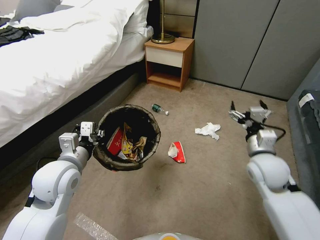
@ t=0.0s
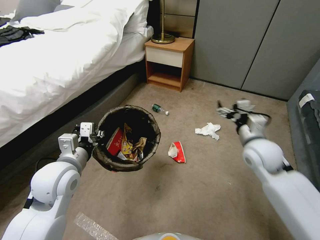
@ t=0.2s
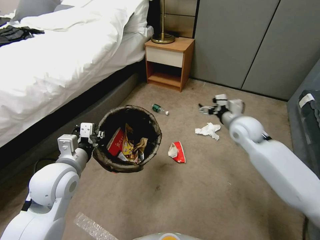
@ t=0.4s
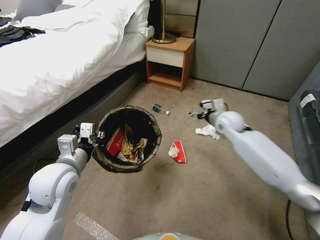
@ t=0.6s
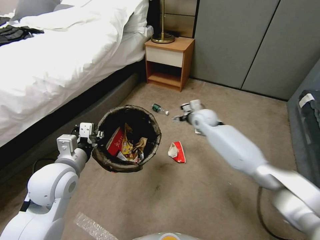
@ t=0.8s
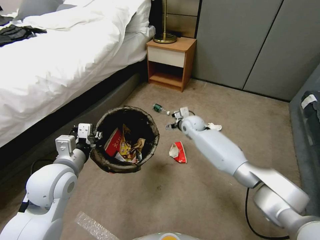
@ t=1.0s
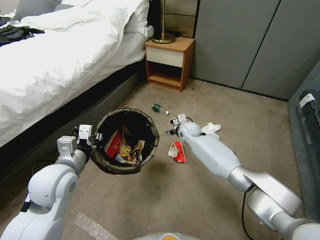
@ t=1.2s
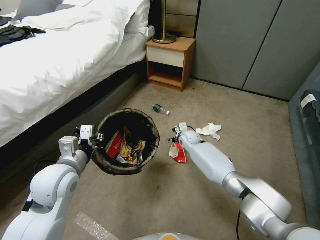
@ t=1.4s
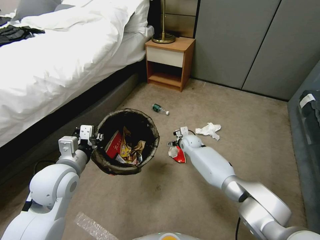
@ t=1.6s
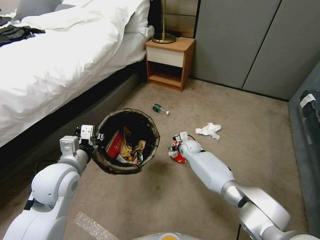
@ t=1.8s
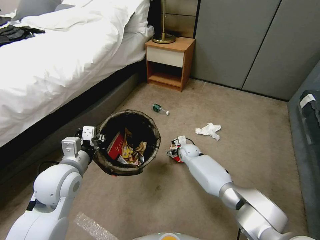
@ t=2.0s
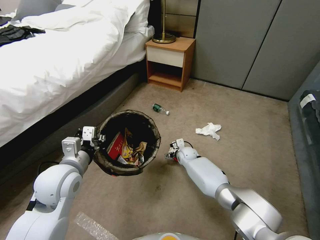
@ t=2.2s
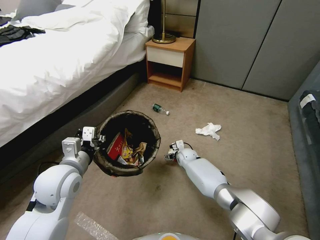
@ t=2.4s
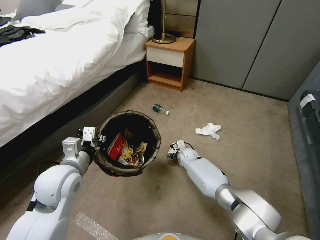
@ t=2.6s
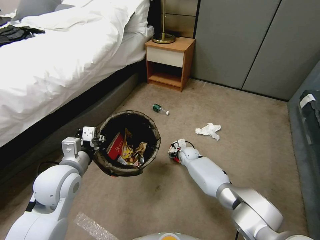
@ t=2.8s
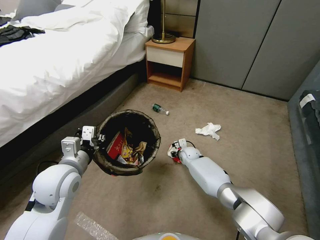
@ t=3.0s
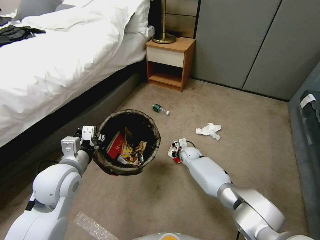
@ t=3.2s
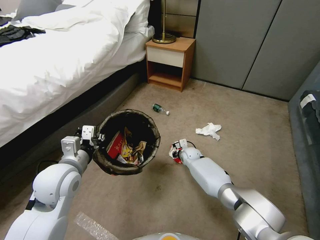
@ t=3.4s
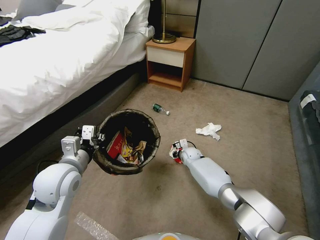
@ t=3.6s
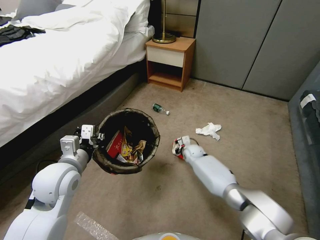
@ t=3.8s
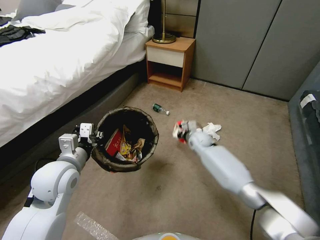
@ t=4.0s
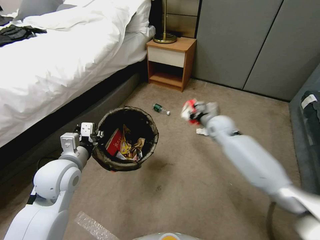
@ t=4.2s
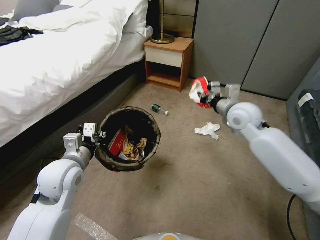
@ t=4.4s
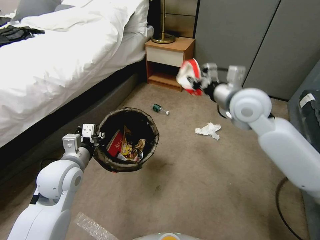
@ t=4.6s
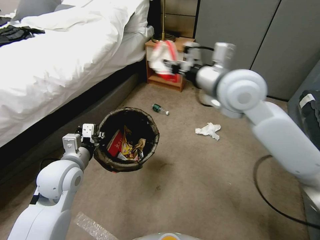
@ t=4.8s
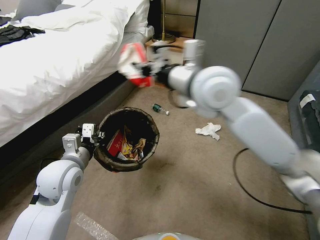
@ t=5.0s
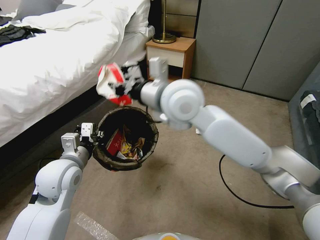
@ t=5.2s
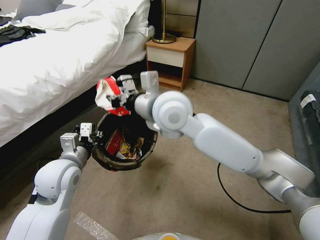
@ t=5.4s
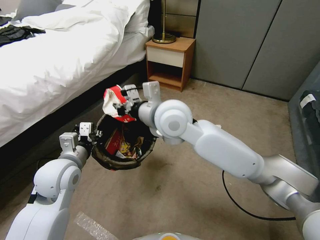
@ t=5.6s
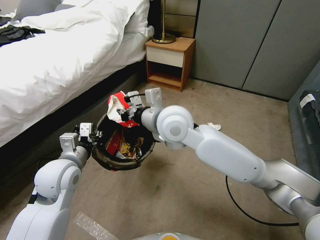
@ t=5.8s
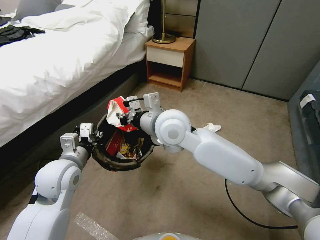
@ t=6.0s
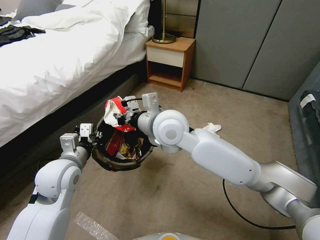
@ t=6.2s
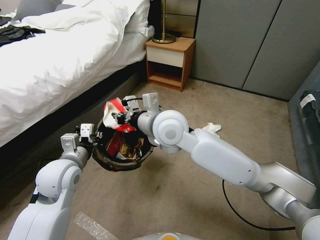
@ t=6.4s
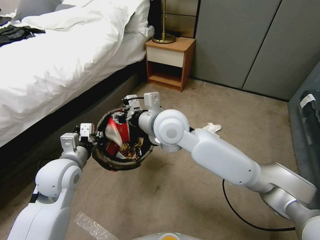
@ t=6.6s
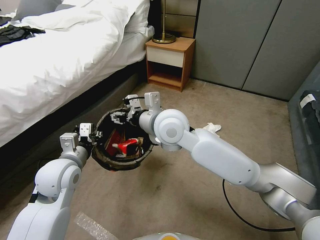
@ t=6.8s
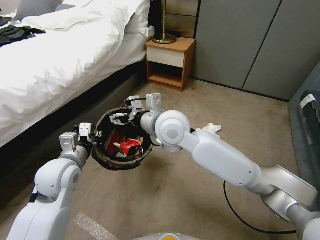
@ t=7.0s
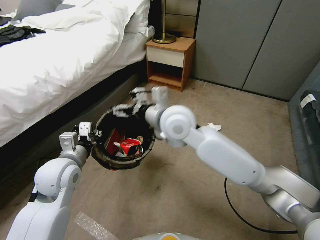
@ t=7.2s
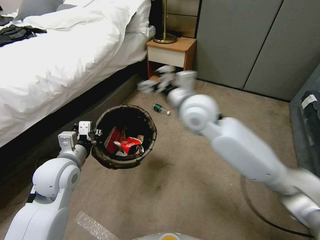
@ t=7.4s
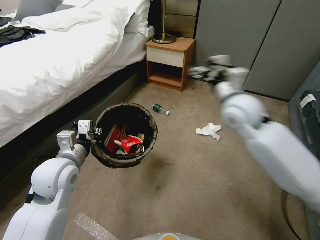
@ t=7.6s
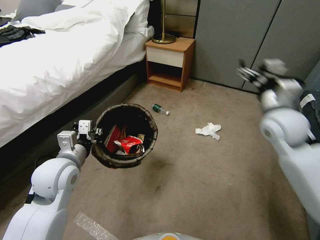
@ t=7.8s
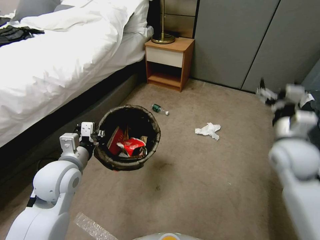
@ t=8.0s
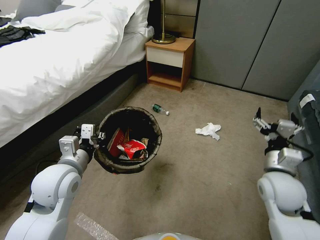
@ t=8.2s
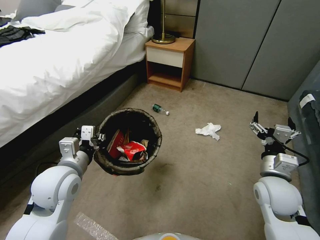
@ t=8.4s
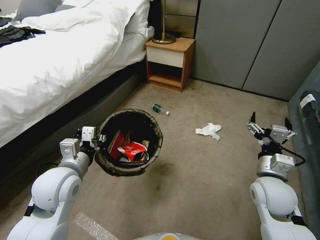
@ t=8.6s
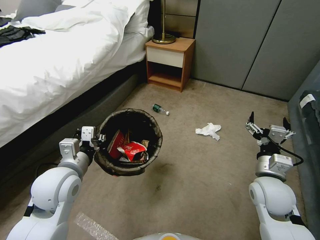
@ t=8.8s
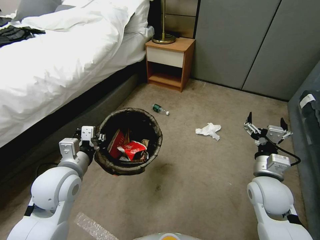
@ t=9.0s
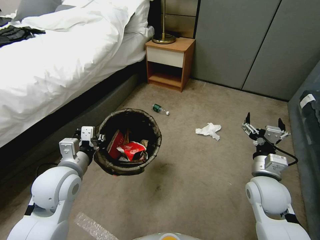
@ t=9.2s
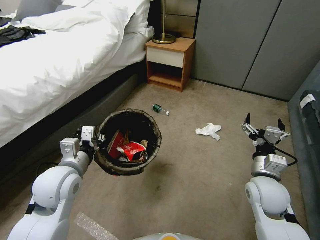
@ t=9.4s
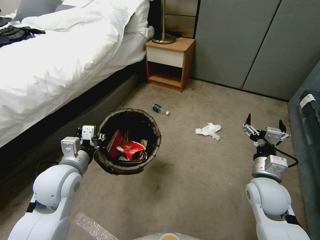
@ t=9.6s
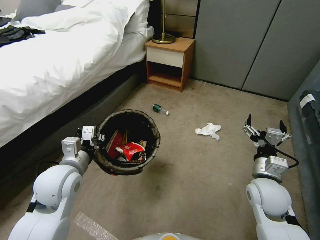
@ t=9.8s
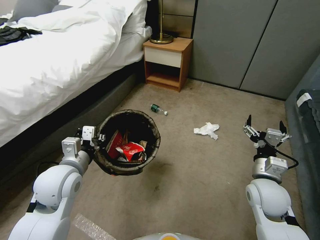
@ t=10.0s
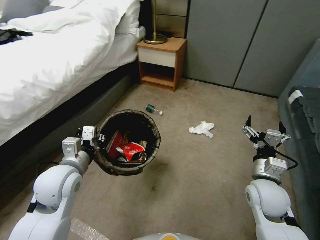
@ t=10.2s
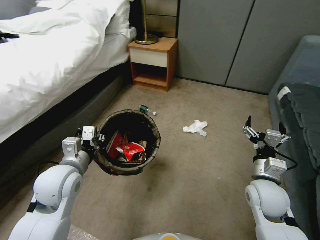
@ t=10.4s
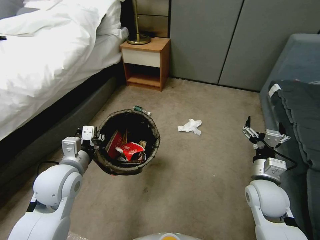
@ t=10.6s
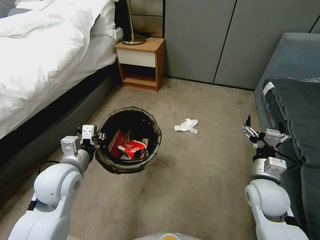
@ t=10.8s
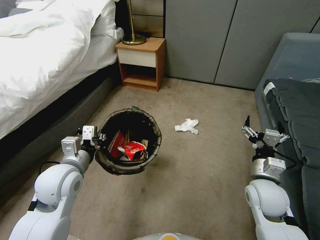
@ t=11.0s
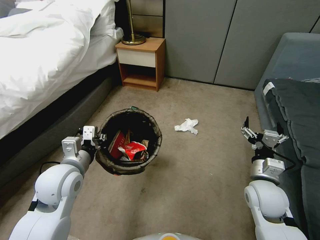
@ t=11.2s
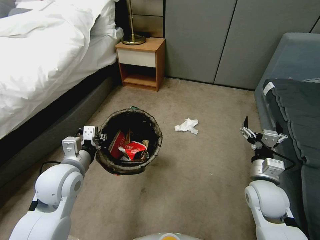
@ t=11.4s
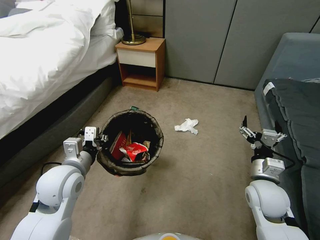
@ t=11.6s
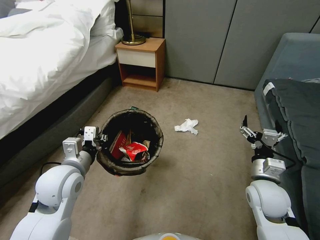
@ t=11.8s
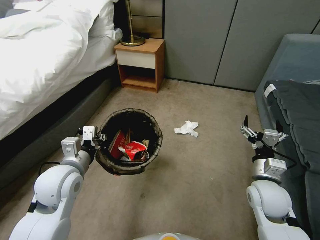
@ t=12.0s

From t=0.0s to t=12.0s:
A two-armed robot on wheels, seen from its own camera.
Task of the whole recording: Pick up the trash bin, then pick up the garbage from the floor and place it into the trash bin.
From t=0.0s to t=1.6s: The right gripper shifts about 35 cm forward, downward and to the left.
From t=1.6s to t=3.0s: The right gripper goes approximately 5 cm downward, and closes.
From t=3.0s to t=4.4s: The right gripper moves upward, roughly 35 cm, and closes.
From t=4.4s to t=6.0s: The right gripper shifts roughly 25 cm to the left.
From t=6.0s to t=7.6s: The right gripper moves to the right, about 20 cm, and opens.
From t=7.6s to t=9.0s: The right gripper moves downward, backward and to the right, approximately 25 cm.

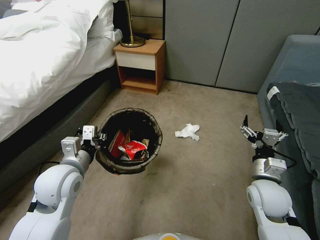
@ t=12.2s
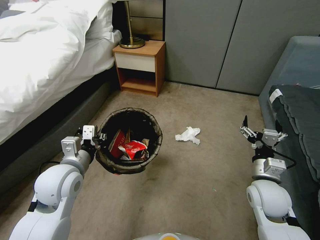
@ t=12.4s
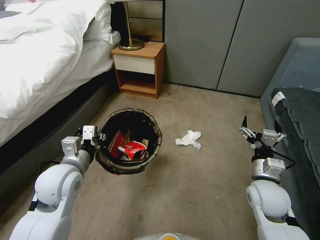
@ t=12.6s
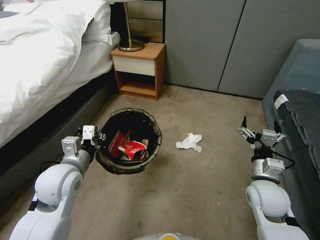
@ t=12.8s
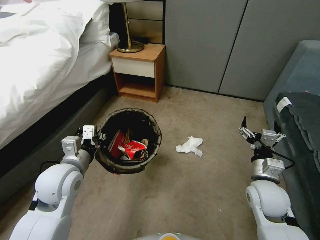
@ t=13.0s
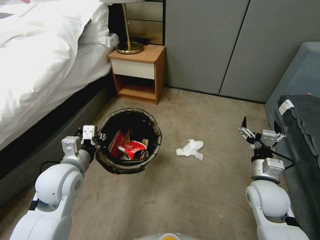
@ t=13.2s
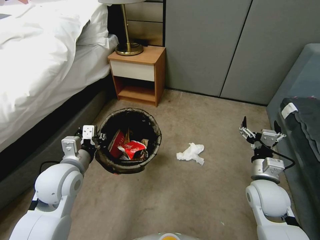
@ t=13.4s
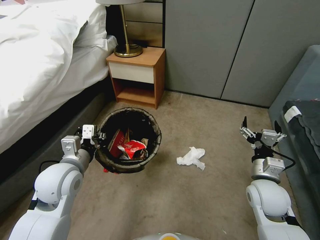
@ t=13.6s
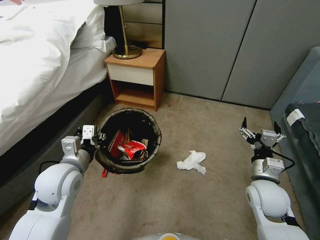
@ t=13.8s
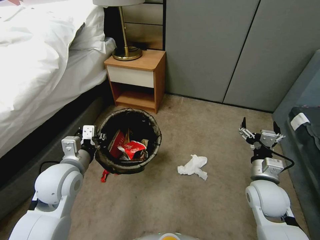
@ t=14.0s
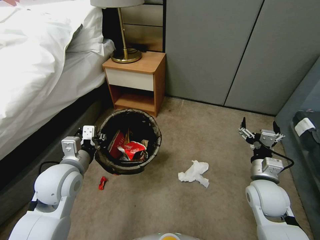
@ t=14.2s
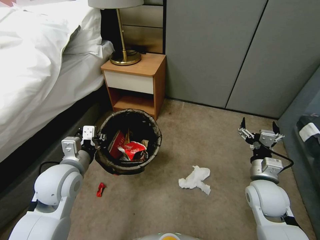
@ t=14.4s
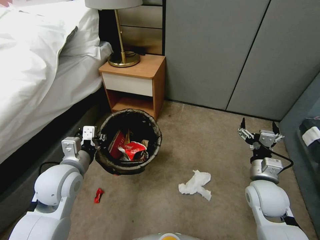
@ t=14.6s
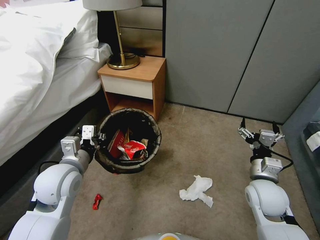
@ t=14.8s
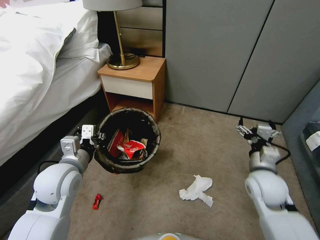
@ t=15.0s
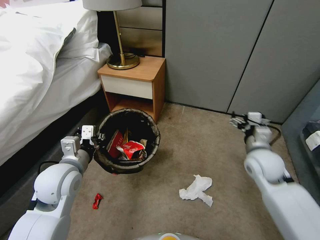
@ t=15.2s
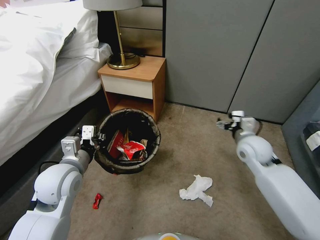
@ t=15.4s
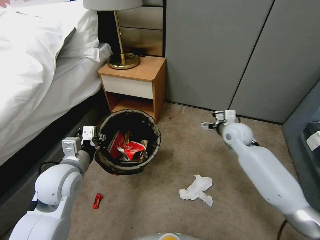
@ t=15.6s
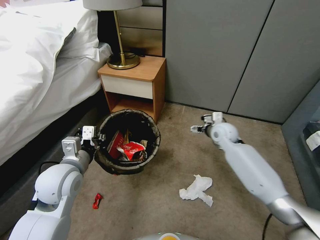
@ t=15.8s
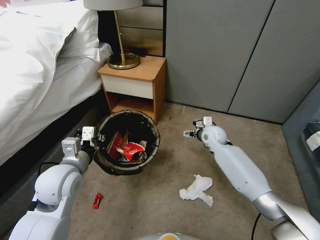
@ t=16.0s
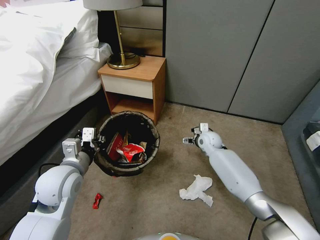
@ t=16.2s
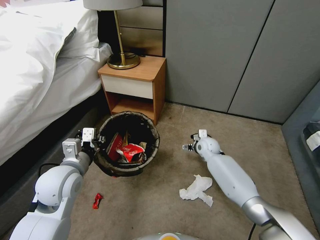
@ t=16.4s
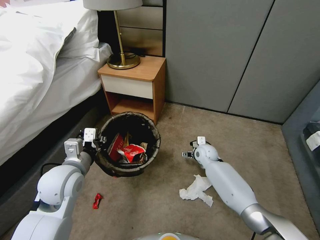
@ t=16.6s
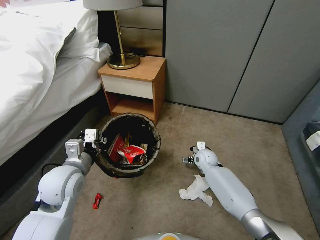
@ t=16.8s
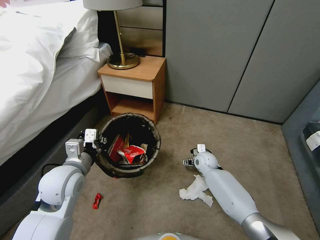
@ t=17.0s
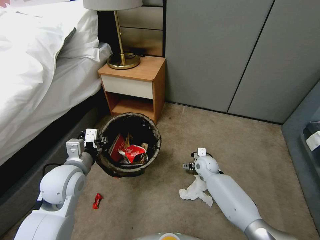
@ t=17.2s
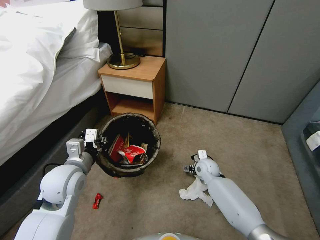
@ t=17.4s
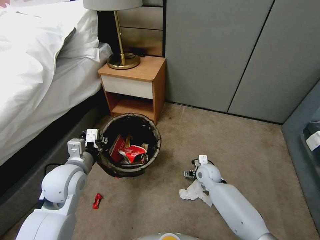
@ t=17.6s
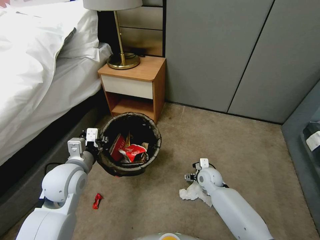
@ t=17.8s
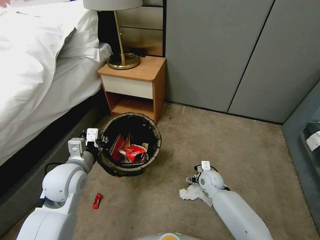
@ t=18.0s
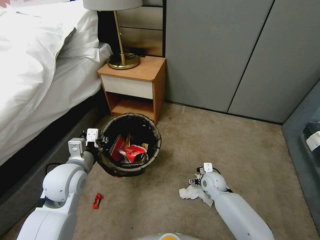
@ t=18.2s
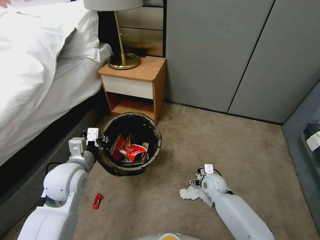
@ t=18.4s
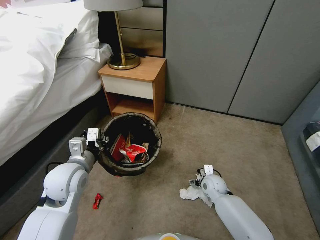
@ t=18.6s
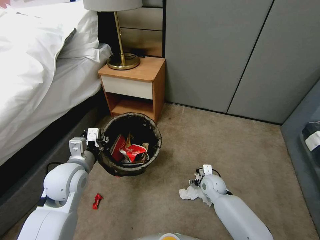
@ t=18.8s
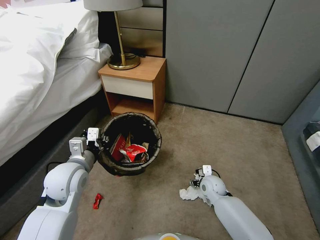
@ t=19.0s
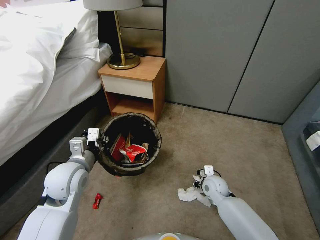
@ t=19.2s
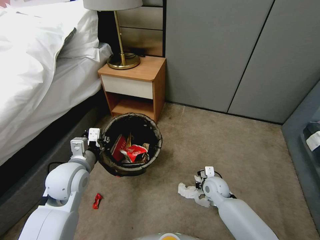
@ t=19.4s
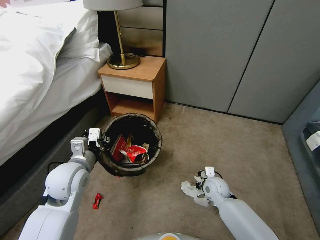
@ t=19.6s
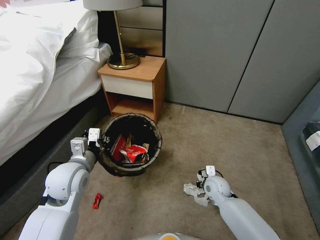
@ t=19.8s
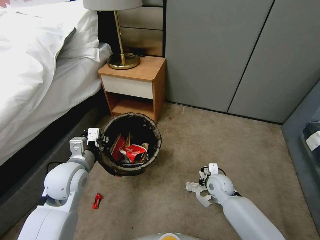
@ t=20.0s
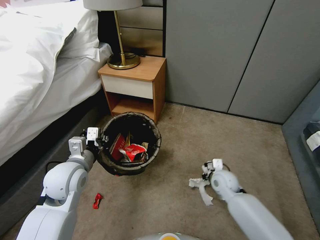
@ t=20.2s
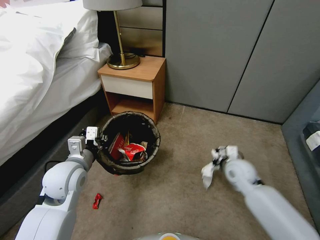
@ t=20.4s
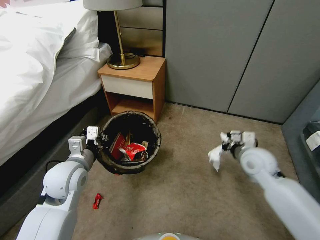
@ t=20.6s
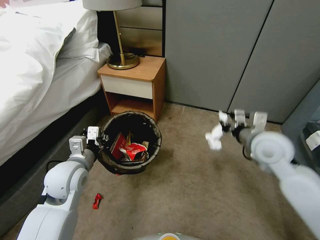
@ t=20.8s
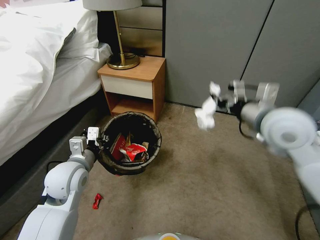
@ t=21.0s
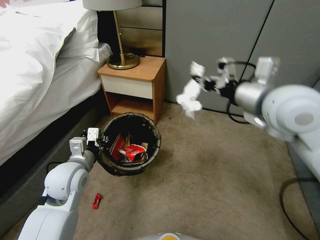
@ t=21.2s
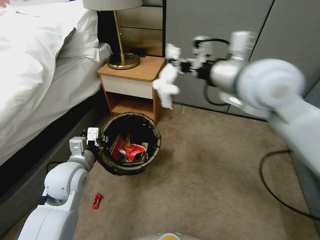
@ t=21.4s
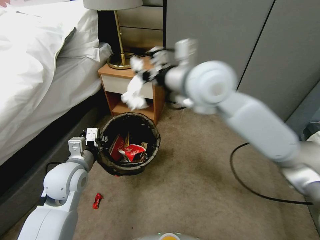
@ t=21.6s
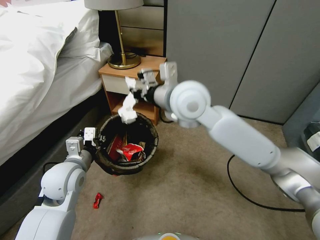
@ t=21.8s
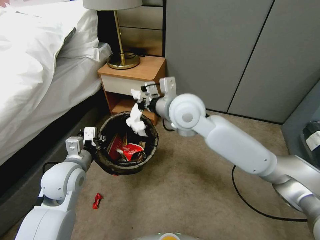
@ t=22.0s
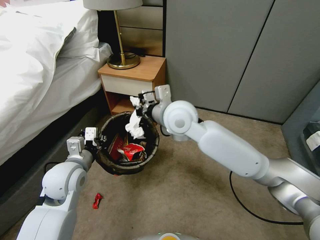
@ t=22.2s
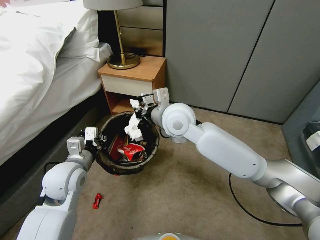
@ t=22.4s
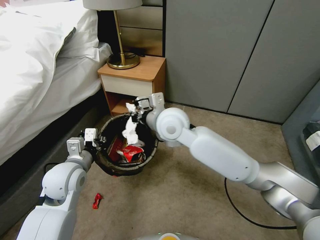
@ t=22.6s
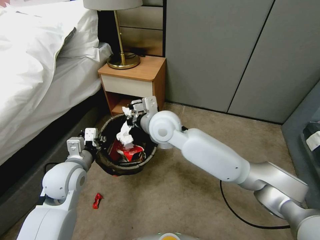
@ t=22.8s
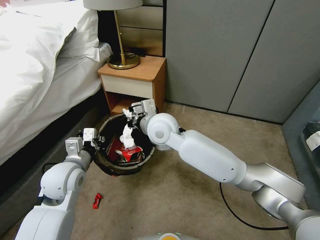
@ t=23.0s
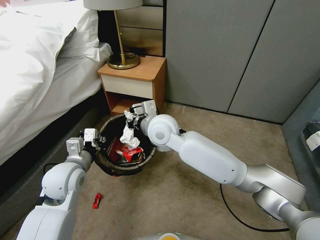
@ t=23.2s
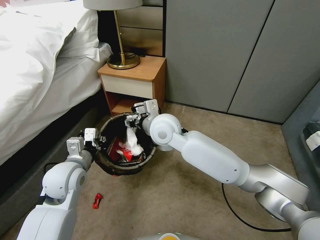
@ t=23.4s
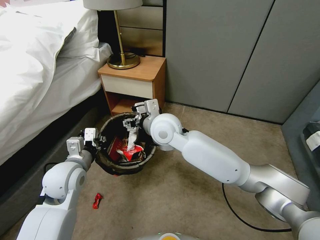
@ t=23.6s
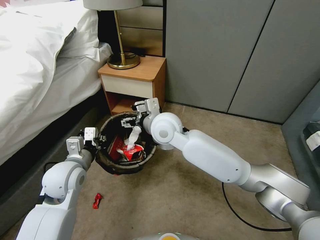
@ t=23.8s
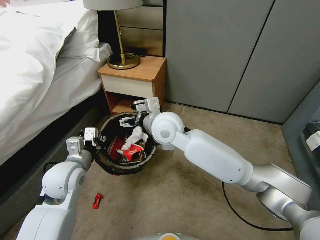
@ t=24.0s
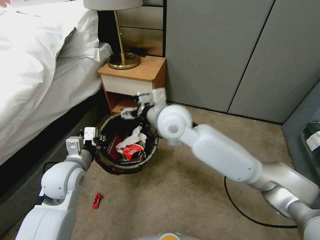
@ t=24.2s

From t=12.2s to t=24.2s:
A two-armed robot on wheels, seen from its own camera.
Task of the whole recording: Pick up the trash bin, then pick up the garbage from the floor and place it into the trash bin.
From t=13.8s to t=15.2s: The right gripper is displaced forward by about 5 cm.
From t=15.2s to t=16.6s: The right gripper shifts some 25 cm downward, forward and to the left.
From t=16.6s to t=18.2s: The right gripper travels backward and downward by approximately 10 cm.
From t=18.2s to t=19.8s: The right gripper closes up.
From t=19.8s to t=21.2s: The right gripper is displaced upward by some 50 cm.
From t=21.2s to t=22.6s: The right gripper goes about 25 cm to the left and downward.
From t=22.6s to t=24.2s: The right gripper opens up.
